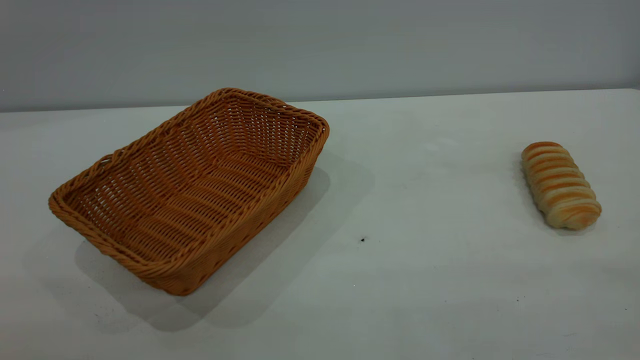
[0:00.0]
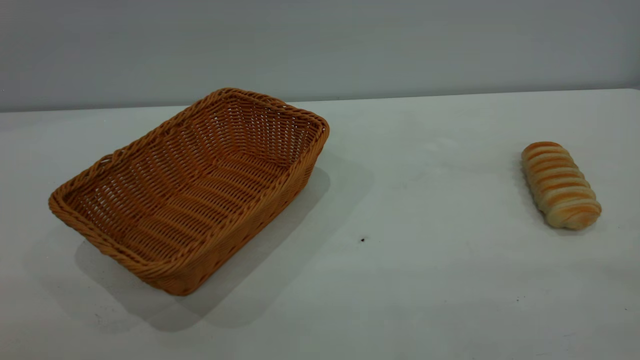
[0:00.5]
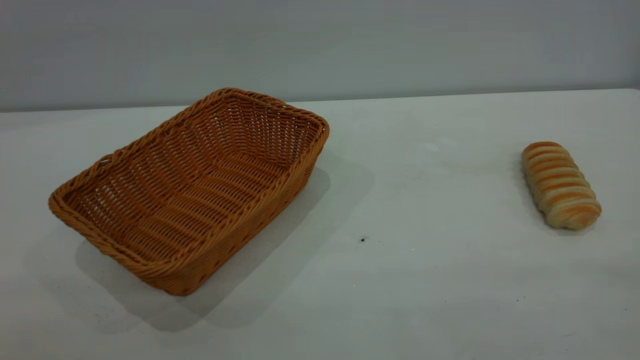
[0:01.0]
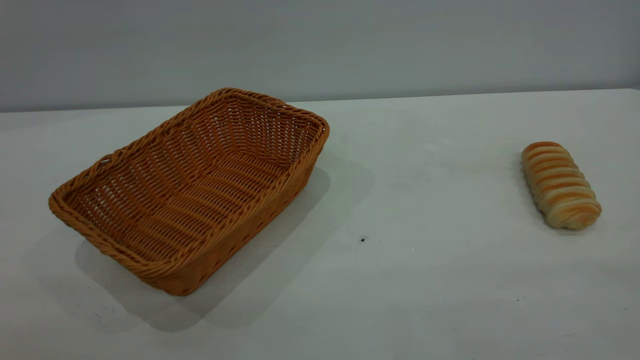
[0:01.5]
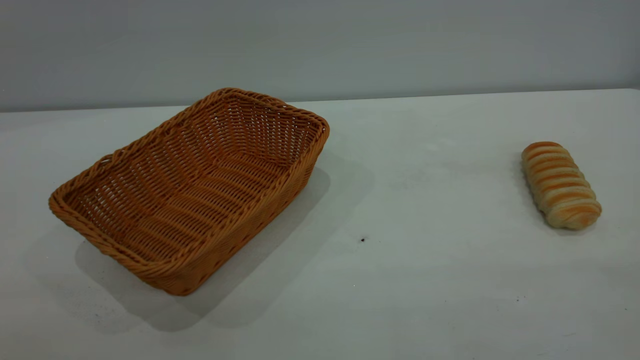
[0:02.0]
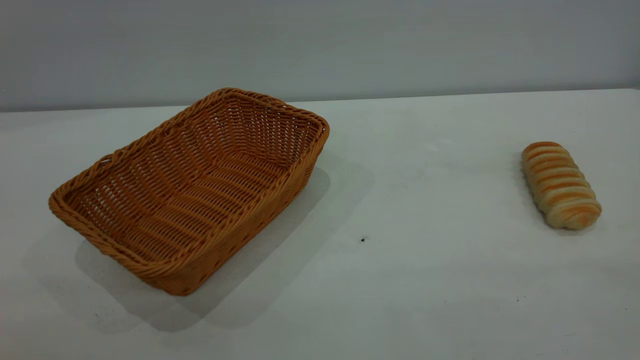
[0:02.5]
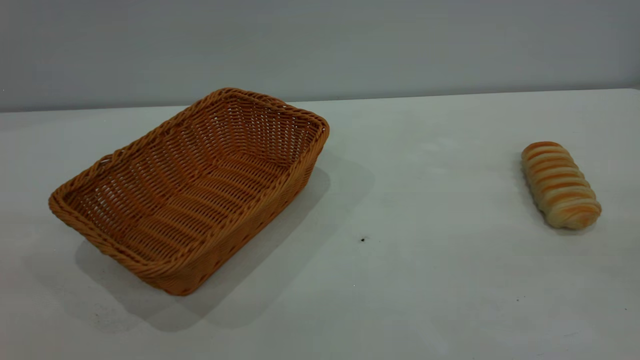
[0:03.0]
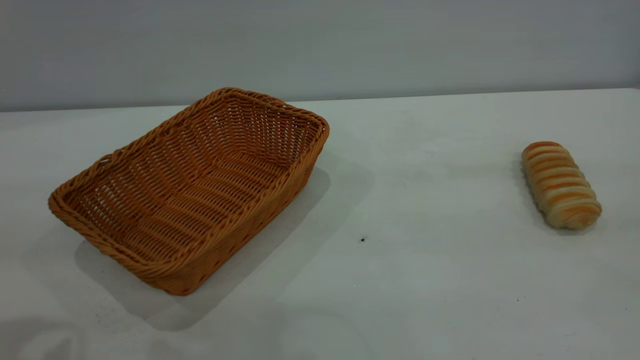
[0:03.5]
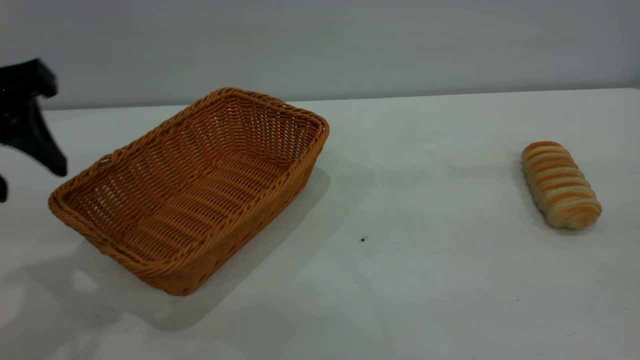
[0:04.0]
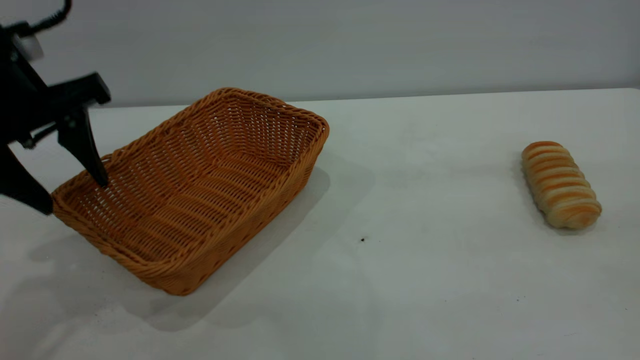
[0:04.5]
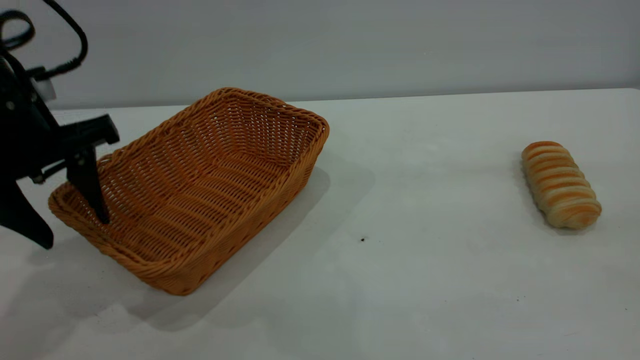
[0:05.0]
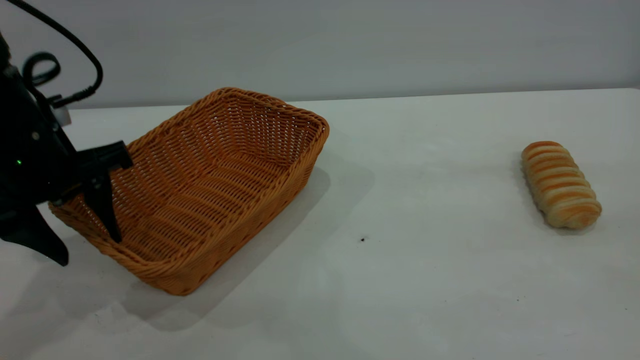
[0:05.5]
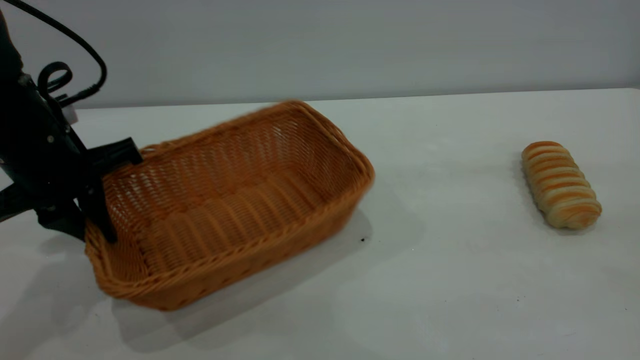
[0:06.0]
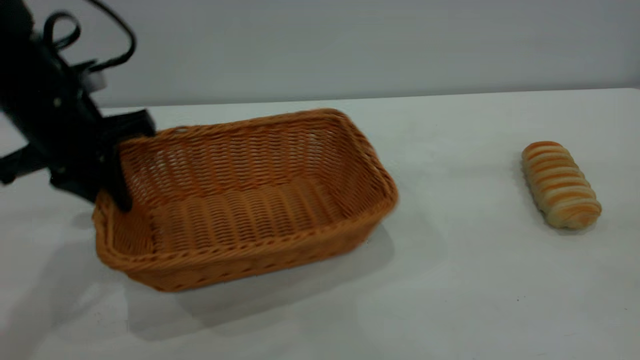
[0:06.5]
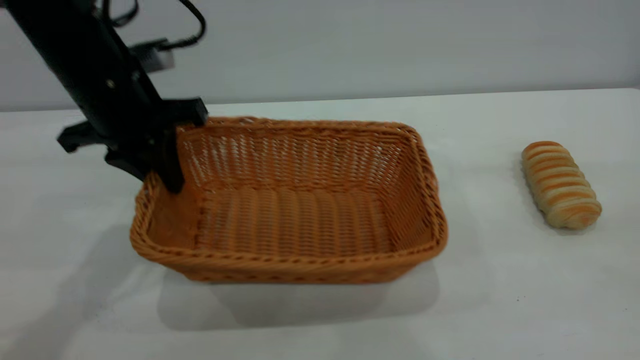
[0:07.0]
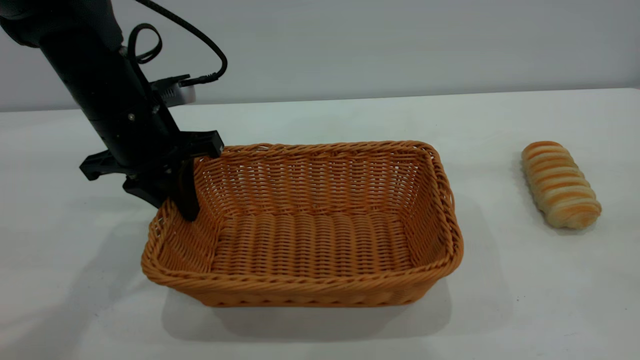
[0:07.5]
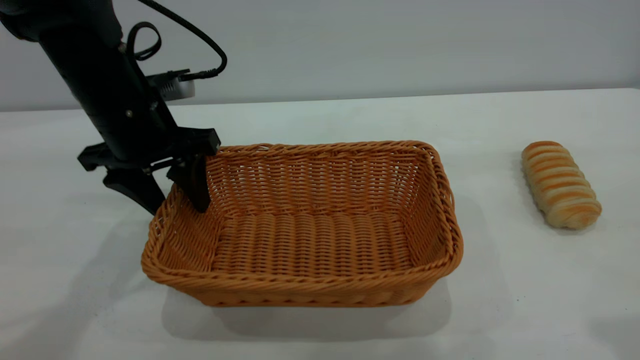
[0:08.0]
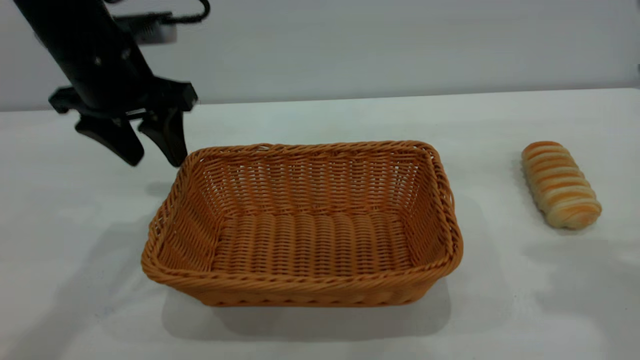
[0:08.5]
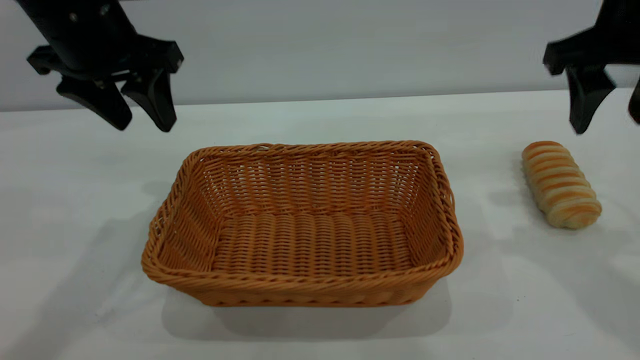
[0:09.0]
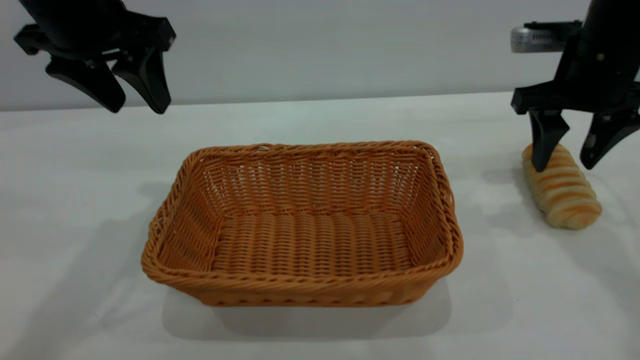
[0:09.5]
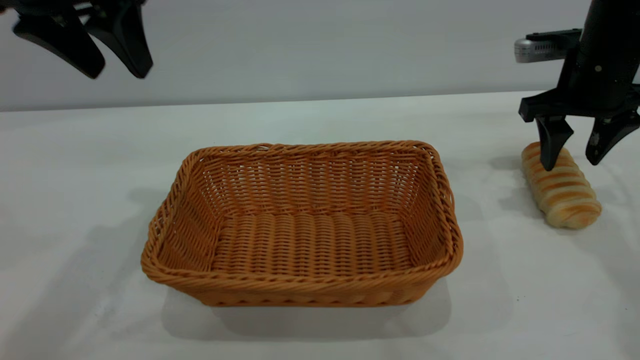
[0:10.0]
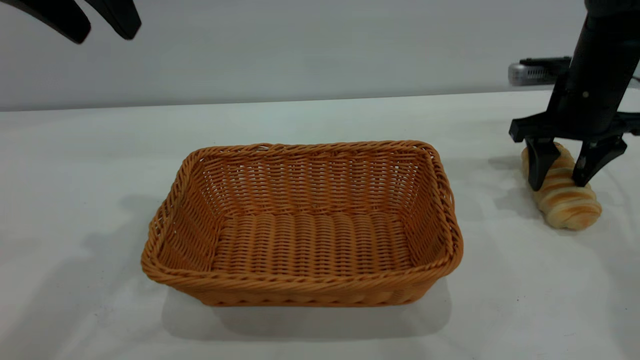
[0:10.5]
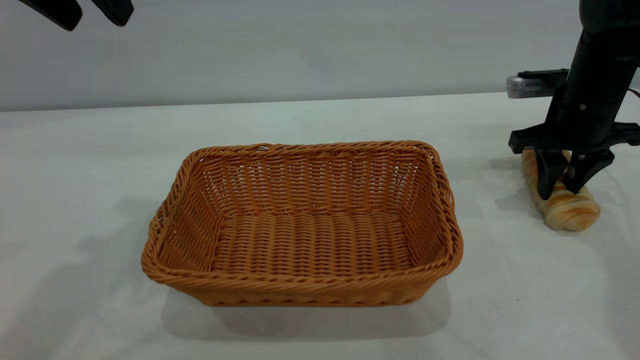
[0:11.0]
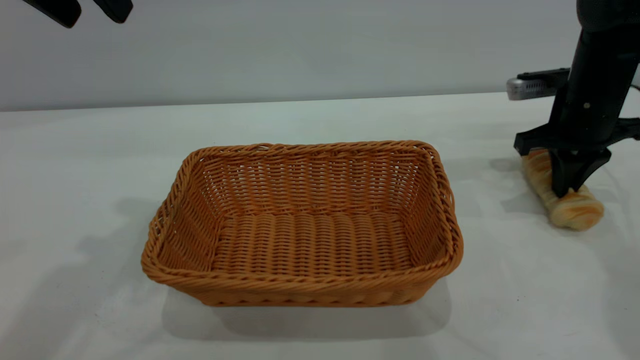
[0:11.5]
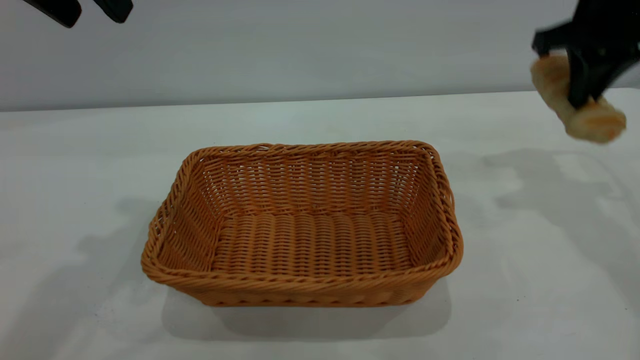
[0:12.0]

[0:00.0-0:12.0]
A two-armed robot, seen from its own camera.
Task of the whole recording: One hand grasps the yellow basket and places it in the middle of the table, while the other hand picks up the long bread and puts it into the yellow basket.
Step, 0:00.0 to 0:08.5: Move the basket to the center of view.
0:02.0 to 0:04.0: The left gripper moves forward, about 30 cm.
0:04.0 to 0:06.0: The left gripper moves downward and forward, approximately 10 cm, and closes.
0:06.0 to 0:08.0: The left gripper goes roughly 10 cm to the right and forward, and opens up. The right gripper shifts approximately 5 cm forward.
0:08.0 to 0:10.0: The left gripper travels upward by approximately 15 cm; the right gripper moves forward and downward, roughly 30 cm.
0:10.0 to 0:12.0: The right gripper moves upward, about 10 cm, and closes its fingers. Meanwhile the left gripper moves some 5 cm.

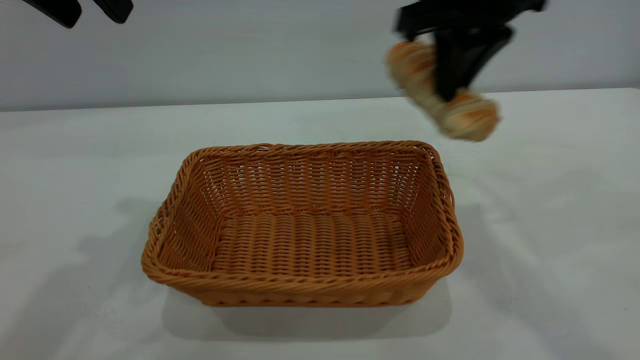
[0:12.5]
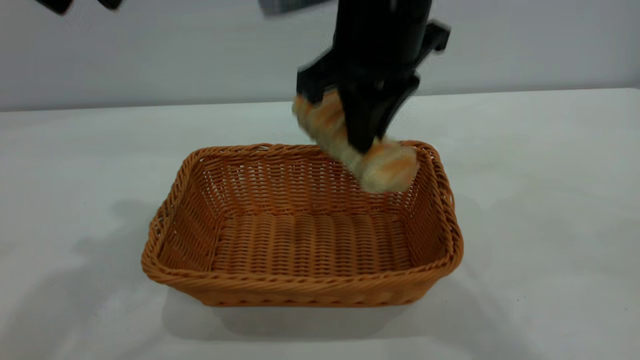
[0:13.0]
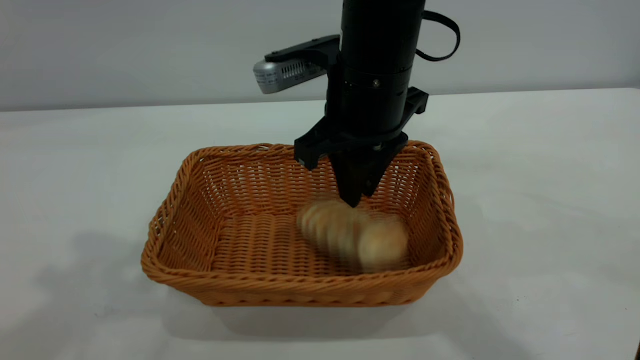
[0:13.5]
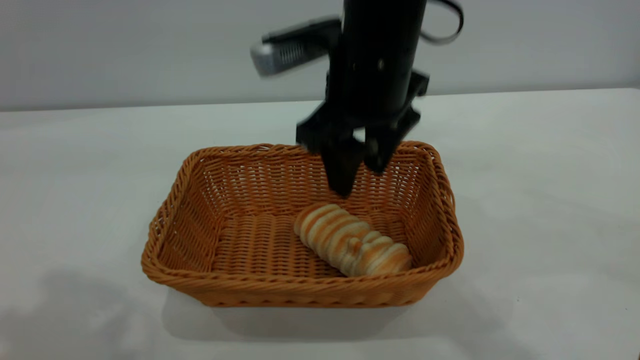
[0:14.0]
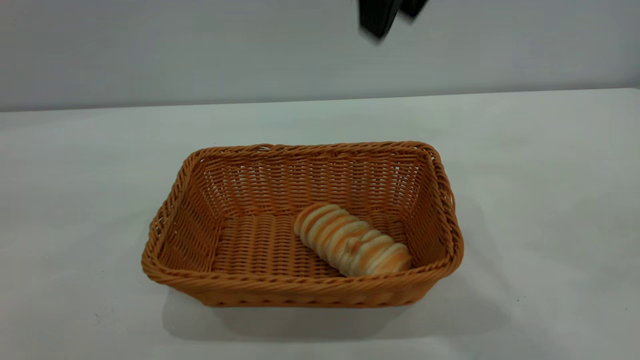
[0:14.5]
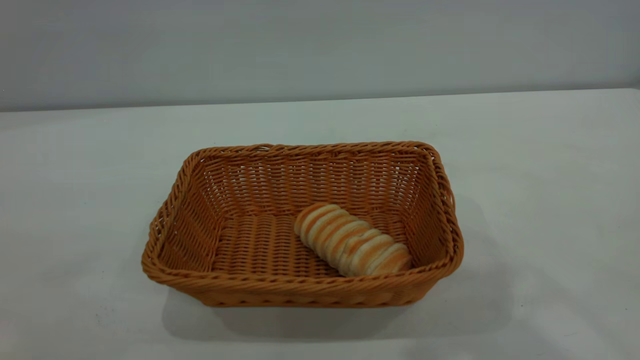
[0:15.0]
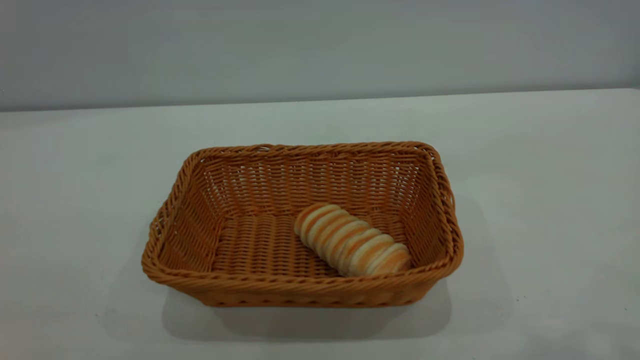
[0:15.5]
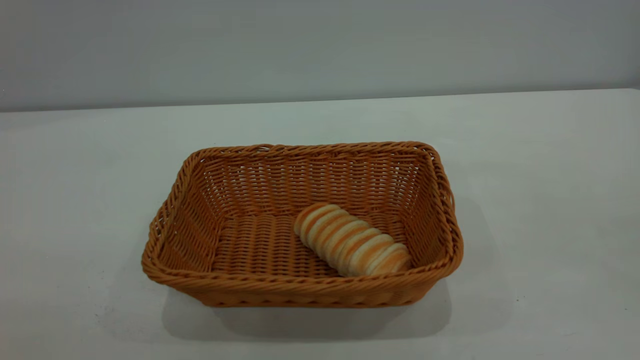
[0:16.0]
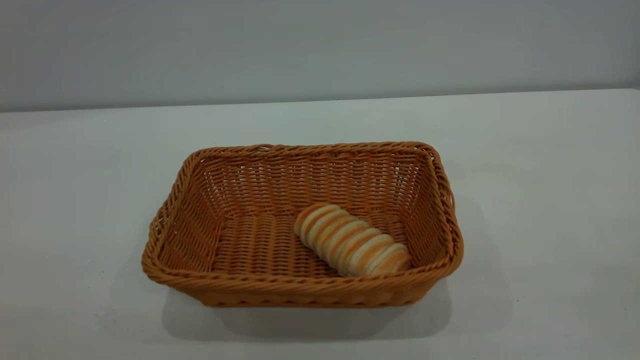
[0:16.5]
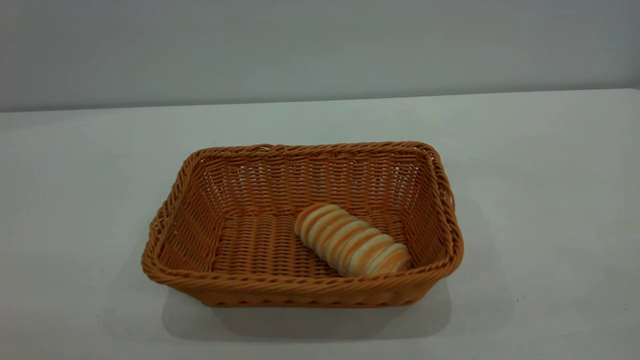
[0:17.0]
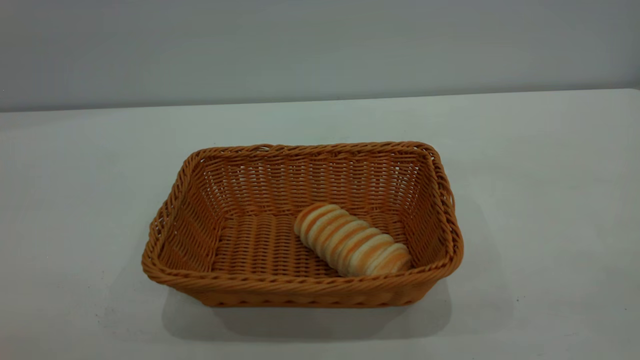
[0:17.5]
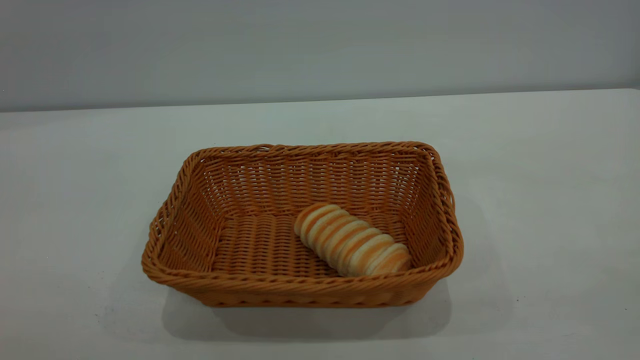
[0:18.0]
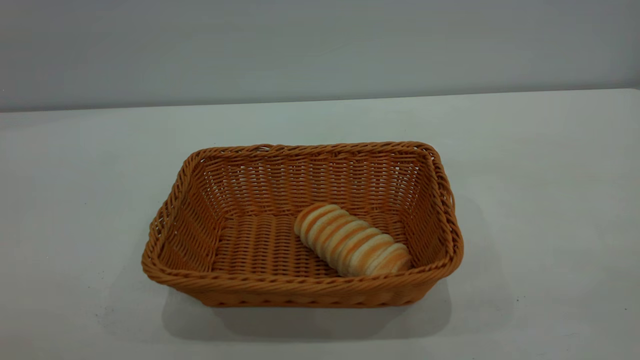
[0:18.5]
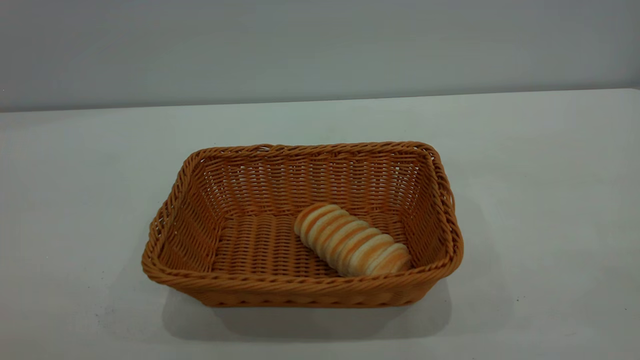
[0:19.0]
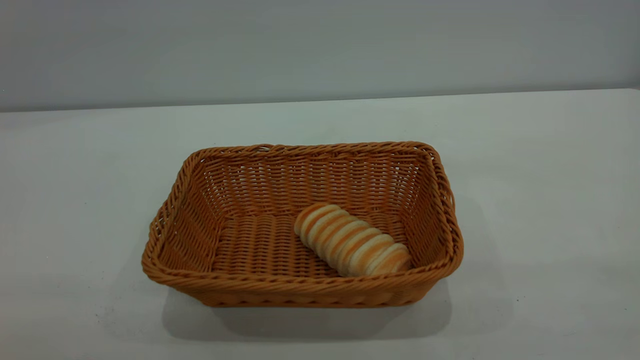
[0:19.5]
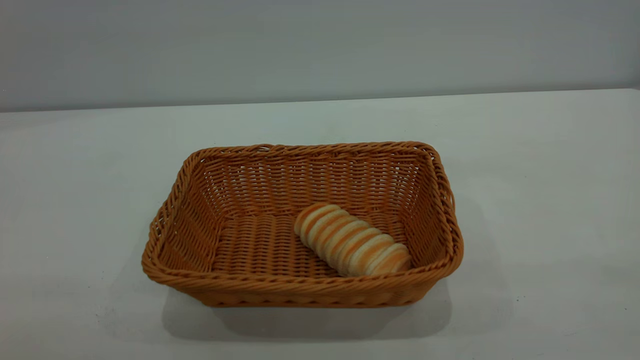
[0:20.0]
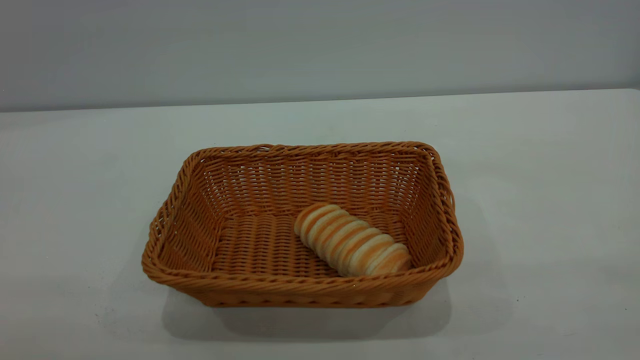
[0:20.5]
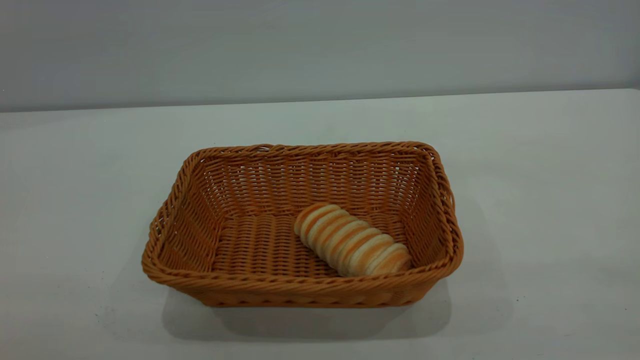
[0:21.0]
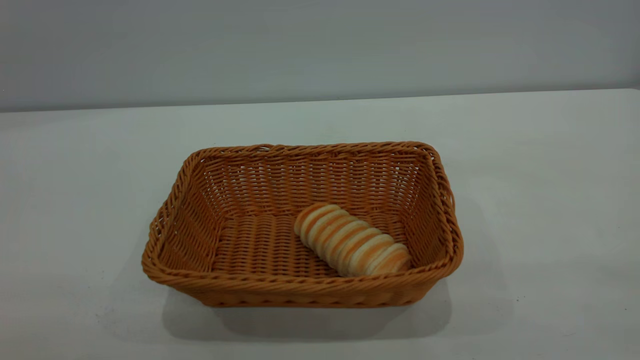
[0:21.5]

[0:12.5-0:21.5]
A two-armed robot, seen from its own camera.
Task of the whole recording: One hand grasps the yellow basket and places it in the middle of the table, while the other hand picks up the long bread and puts it into the yellow basket.
Step, 0:12.5 to 0:14.0: place the bread into the basket.
0:12.5 to 0:14.5: The right gripper goes roughly 10 cm upward and backward, and opens. The left gripper heads backward, covering roughly 20 cm.
0:14.5 to 0:17.0: The right gripper is displaced backward and to the right by about 40 cm; the left gripper heads backward and downward, covering some 15 cm.
0:19.5 to 0:21.5: Both grippers stay about where they are.
